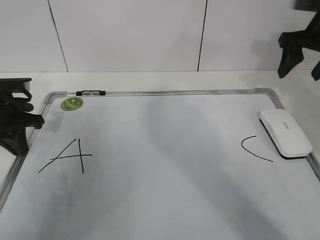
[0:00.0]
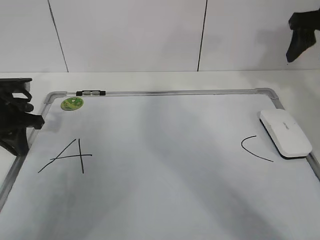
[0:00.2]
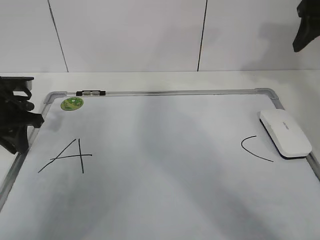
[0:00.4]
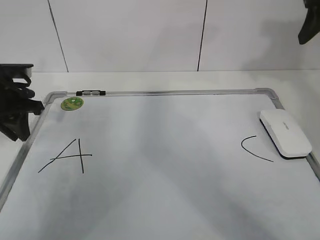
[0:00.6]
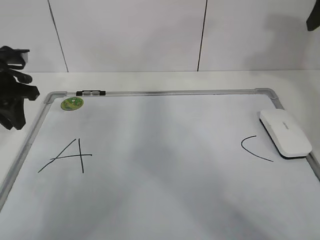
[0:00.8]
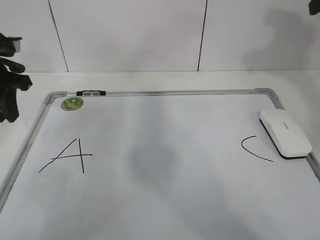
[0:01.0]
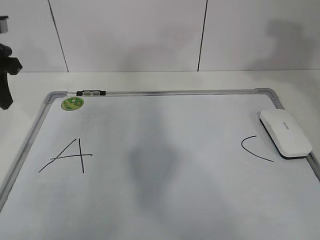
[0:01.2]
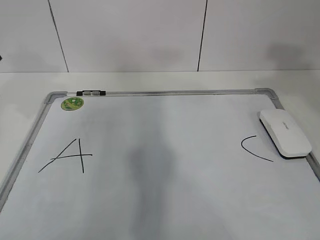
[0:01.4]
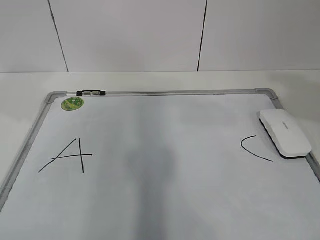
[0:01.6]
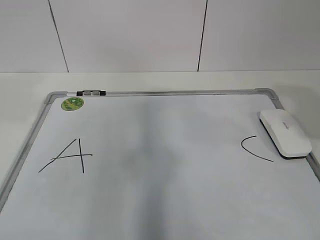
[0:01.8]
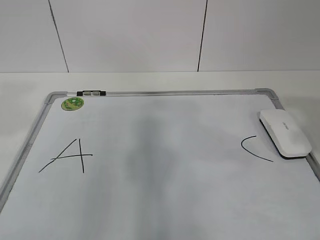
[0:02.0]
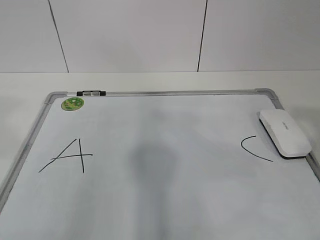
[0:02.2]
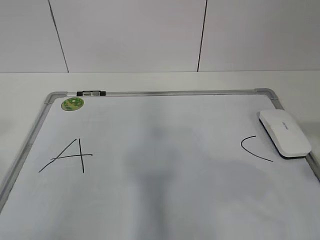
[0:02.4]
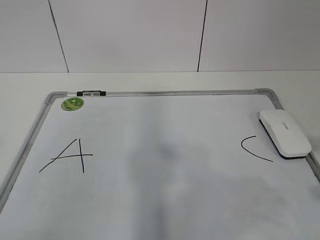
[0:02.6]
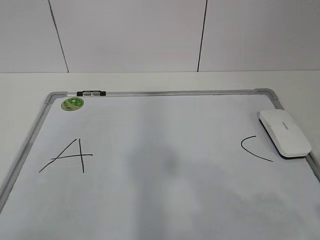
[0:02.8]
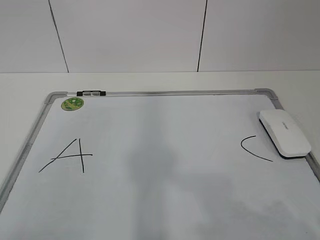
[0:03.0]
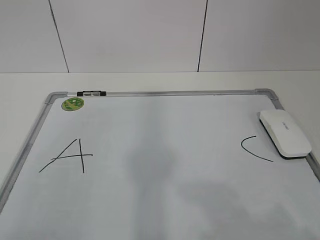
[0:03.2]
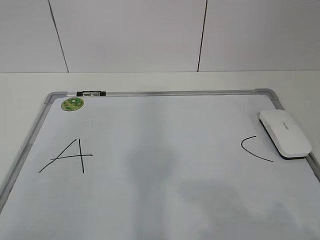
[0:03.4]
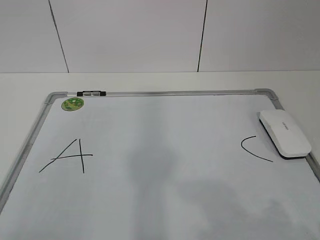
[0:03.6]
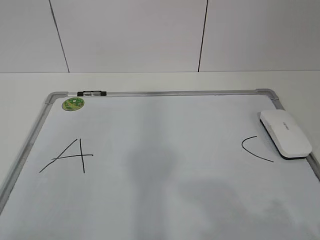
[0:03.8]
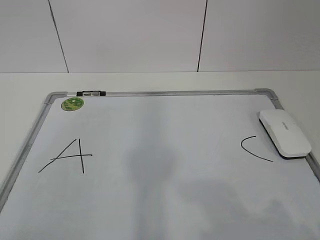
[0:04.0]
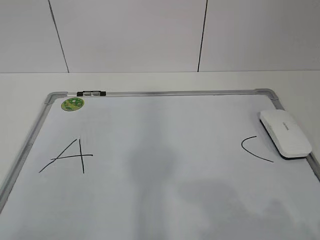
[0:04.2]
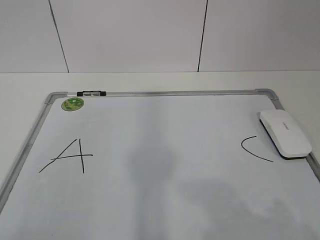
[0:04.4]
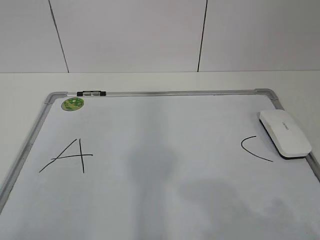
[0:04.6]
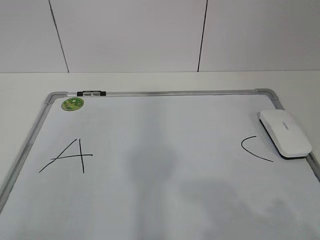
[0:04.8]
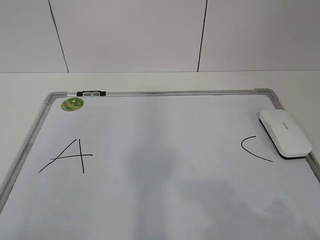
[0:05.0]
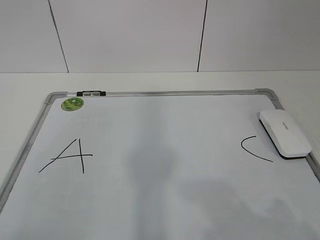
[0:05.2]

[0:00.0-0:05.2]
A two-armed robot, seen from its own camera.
Task of the whole recording: pick up the eraser on the blackboard and erase the letter "B".
0:00.0 to 0:01.8: The right gripper goes approximately 25 cm backward, and closes up, while the left gripper goes roughly 25 cm upward and backward, and opens its fingers.
0:01.8 to 0:03.4: Both grippers move backward and downward, roughly 20 cm.
0:03.4 to 0:05.2: Both grippers stay about where they are.
